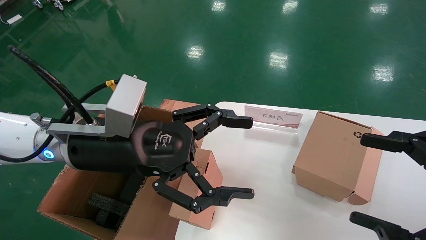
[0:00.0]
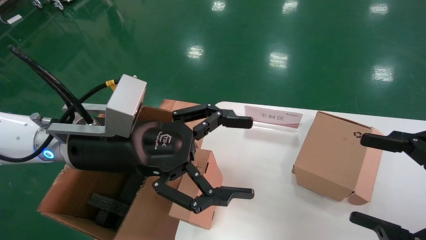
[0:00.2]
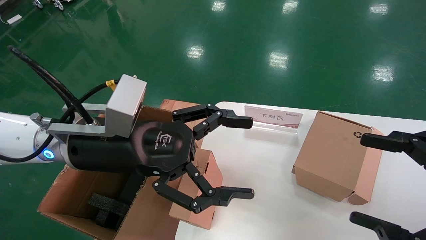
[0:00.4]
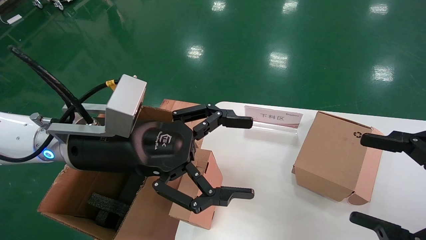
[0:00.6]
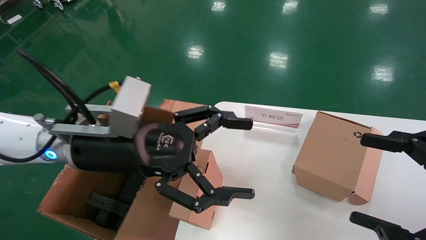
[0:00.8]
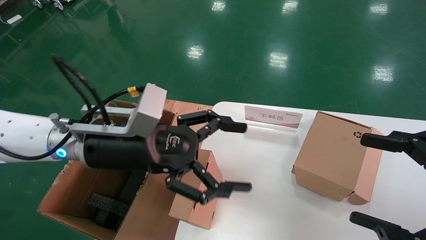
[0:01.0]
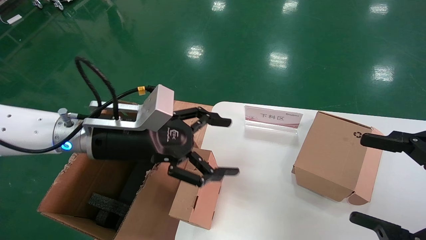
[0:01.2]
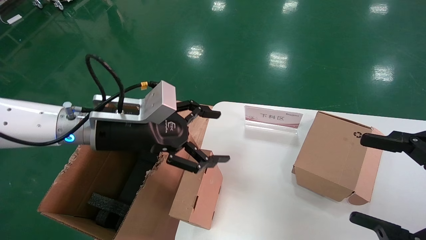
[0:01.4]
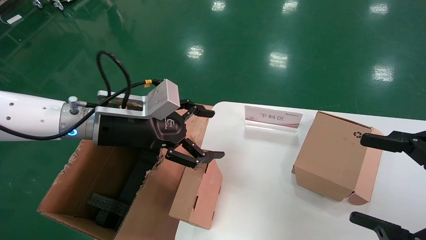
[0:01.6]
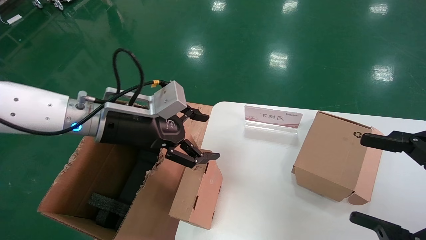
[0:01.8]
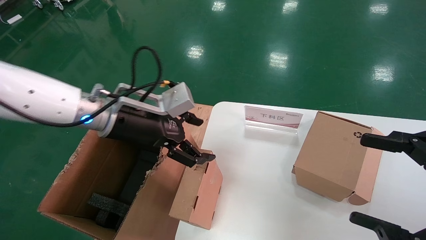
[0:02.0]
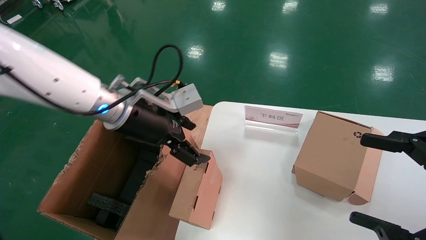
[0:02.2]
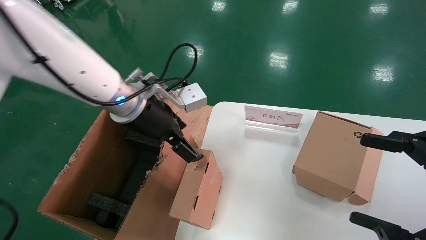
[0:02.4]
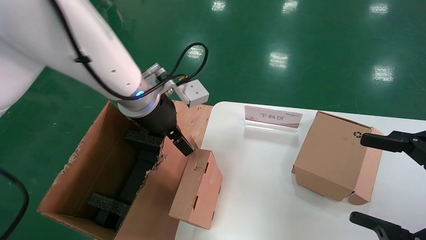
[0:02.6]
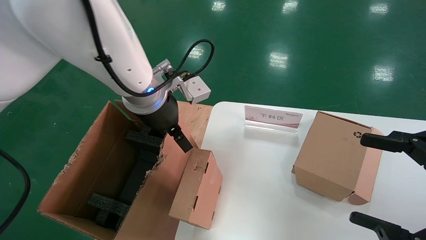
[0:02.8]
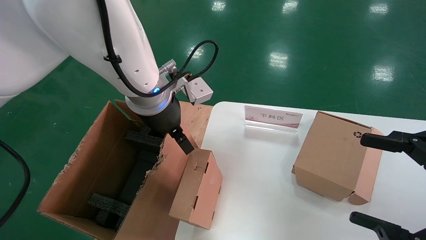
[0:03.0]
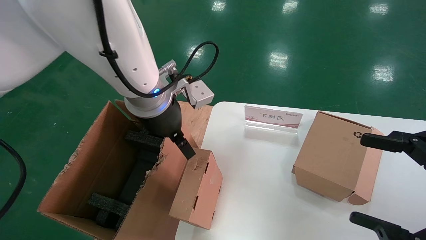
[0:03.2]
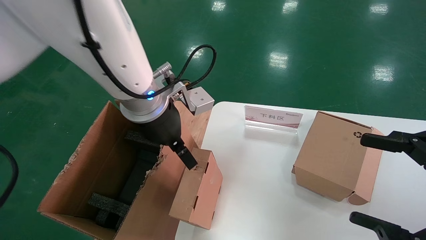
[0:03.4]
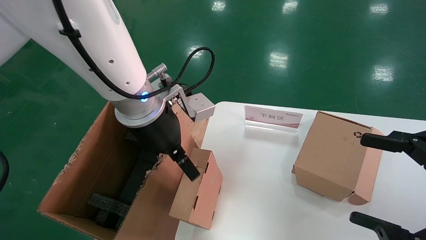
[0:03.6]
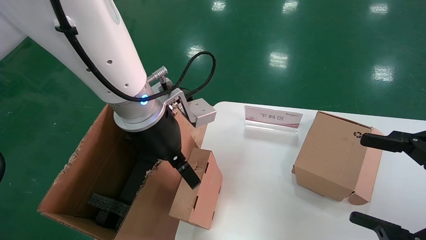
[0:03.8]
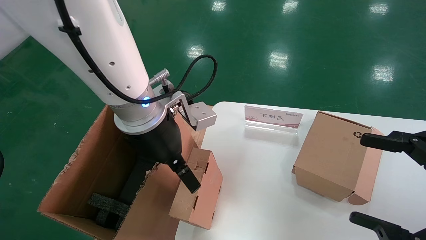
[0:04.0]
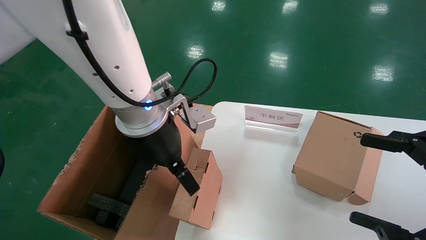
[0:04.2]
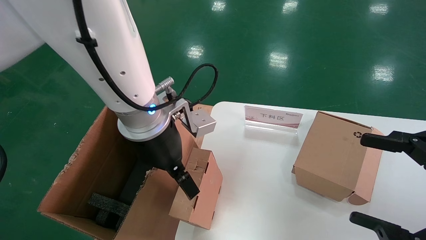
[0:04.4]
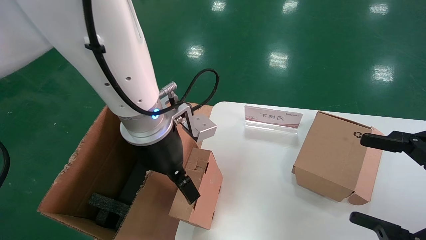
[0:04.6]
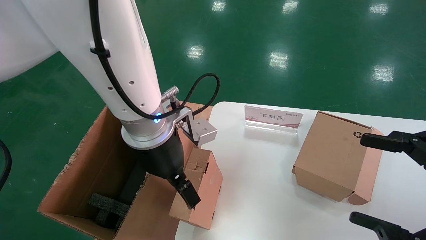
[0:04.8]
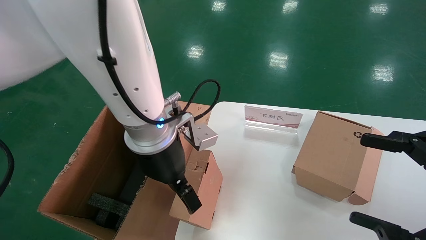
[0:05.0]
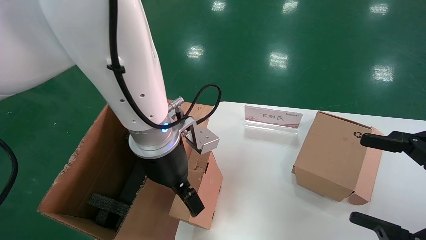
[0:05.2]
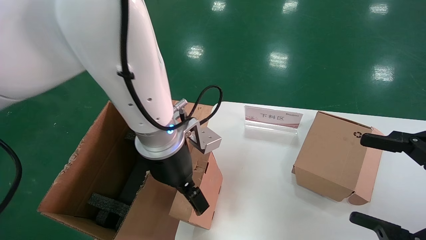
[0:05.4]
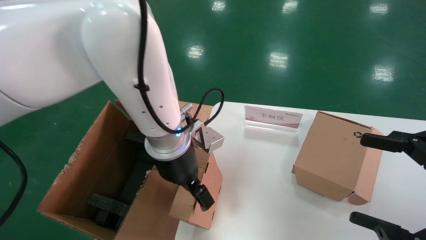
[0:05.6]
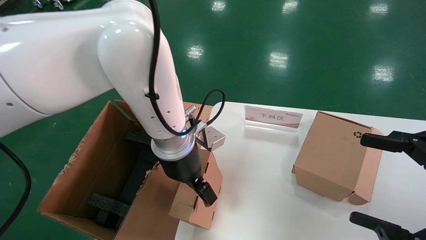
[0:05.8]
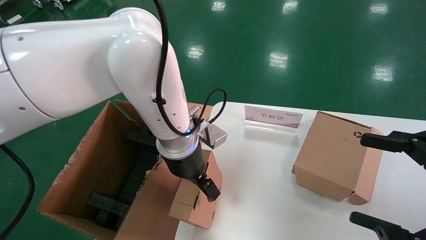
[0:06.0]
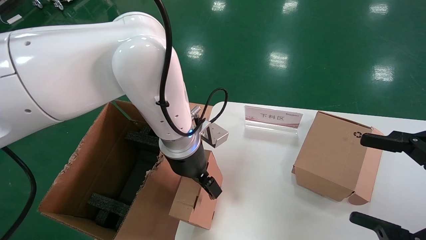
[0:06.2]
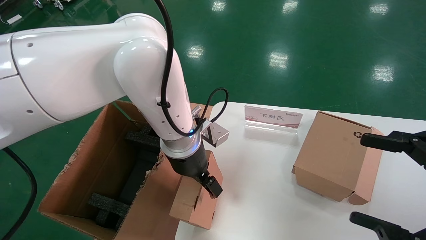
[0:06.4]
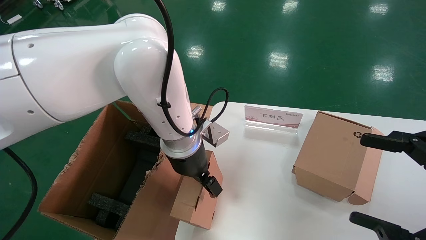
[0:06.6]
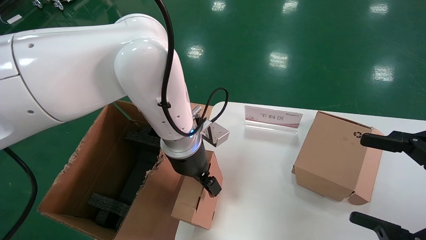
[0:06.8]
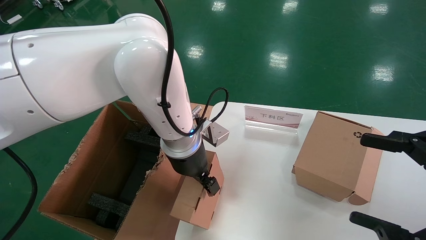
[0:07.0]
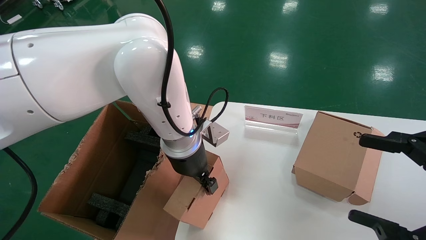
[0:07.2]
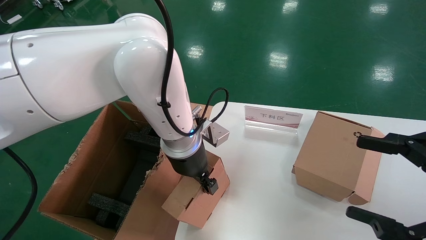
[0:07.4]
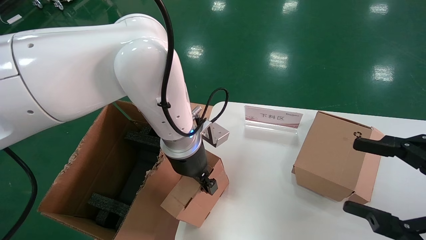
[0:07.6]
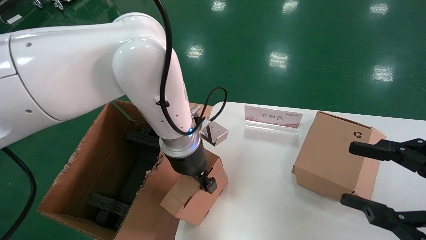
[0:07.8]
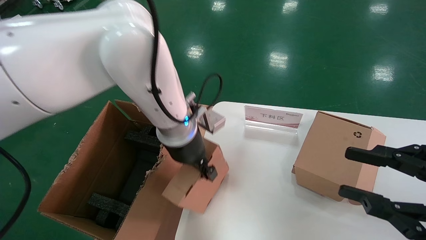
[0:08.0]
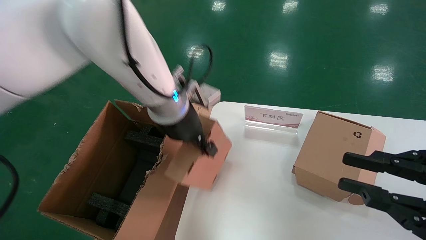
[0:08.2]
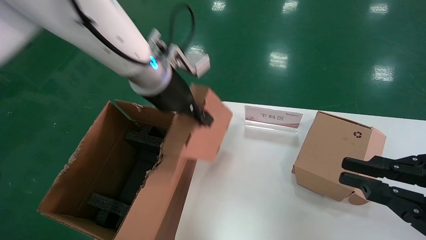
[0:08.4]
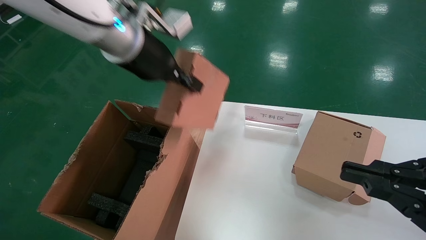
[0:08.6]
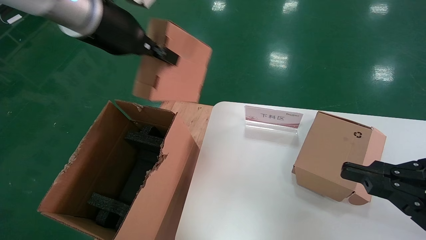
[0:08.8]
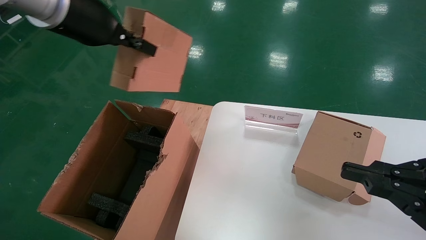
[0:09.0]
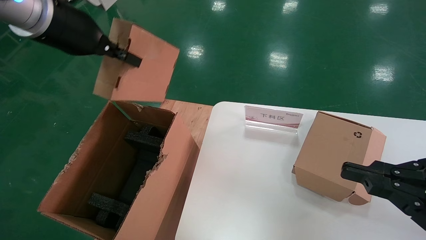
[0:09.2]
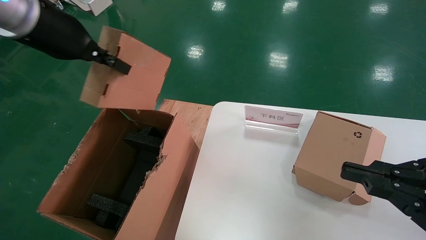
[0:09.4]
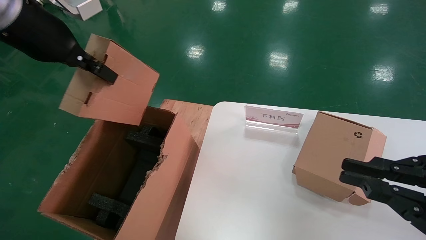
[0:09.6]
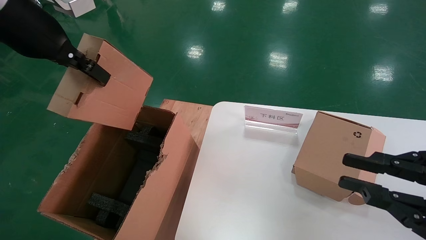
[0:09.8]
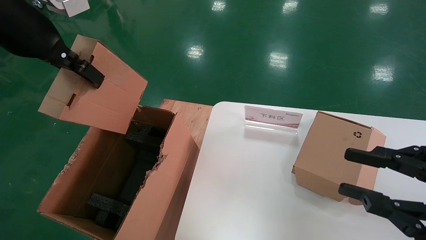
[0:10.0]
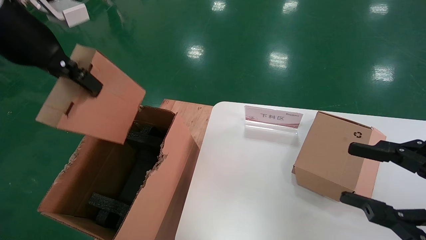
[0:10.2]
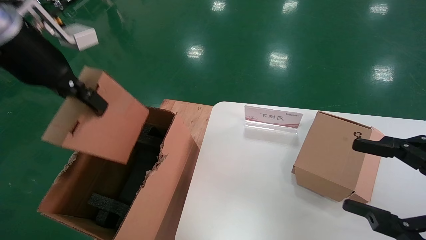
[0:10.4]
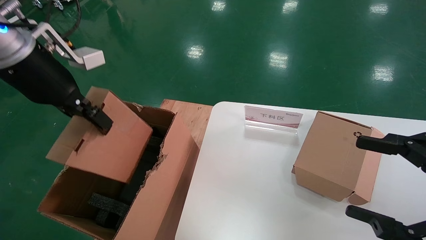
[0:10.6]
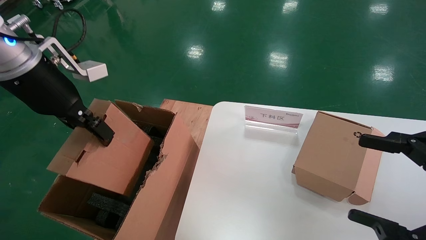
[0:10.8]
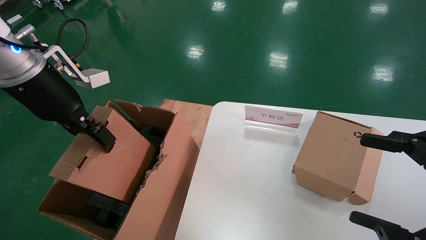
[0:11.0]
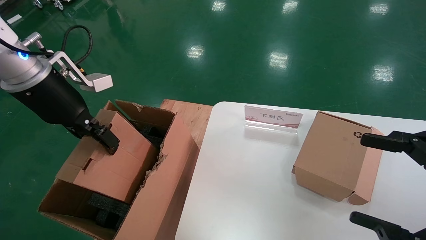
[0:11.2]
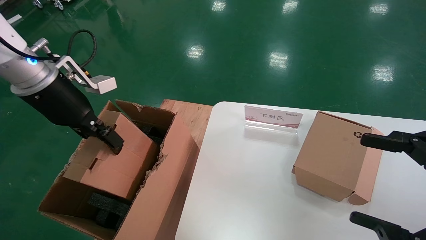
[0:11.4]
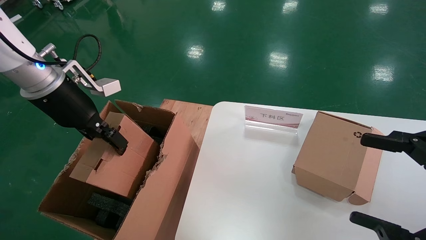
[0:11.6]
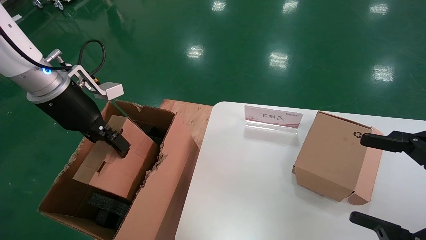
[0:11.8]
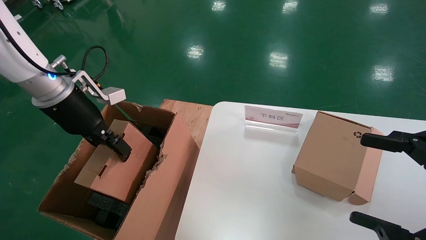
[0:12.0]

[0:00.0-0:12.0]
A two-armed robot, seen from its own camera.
Task of the whole recording: put the box on the table into the big box.
Step, 0:00.0 to 0:07.0: Grasp the paper box.
0:00.0 to 0:01.6: The left gripper shifts about 5 cm forward.
0:01.6 to 0:03.0: The left gripper shifts roughly 10 cm to the right.
0:03.0 to 0:04.4: The left gripper changes place by approximately 5 cm.
0:04.4 to 0:06.0: The left gripper moves downward and forward, some 10 cm.
0:06.0 to 0:07.6: The left gripper closes.
0:07.6 to 0:09.0: The left gripper goes roughly 25 cm upward and to the left; the right gripper closes.
0:09.0 to 0:10.4: The right gripper opens up; the left gripper is displaced to the left by about 5 cm.
0:10.4 to 0:12.0: The right gripper opens up. Meanwhile the left gripper travels downward and forward by about 10 cm.

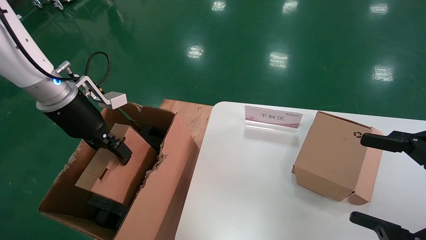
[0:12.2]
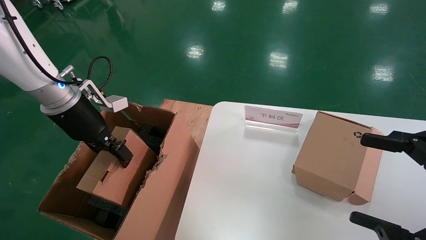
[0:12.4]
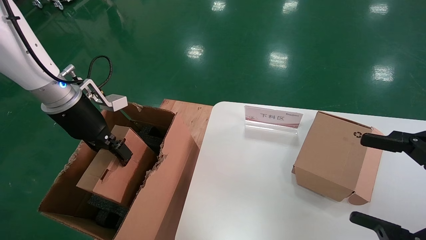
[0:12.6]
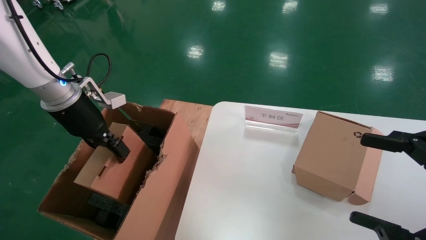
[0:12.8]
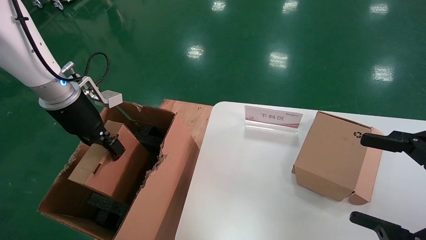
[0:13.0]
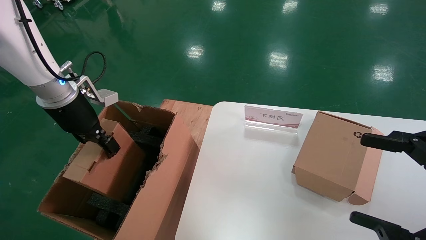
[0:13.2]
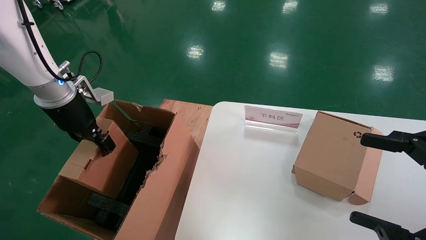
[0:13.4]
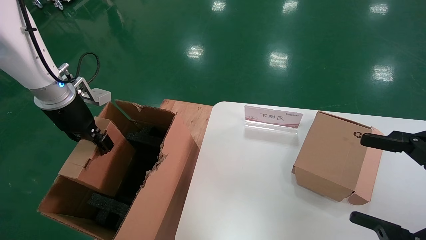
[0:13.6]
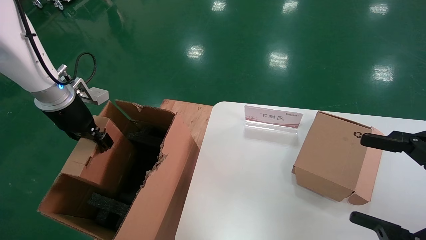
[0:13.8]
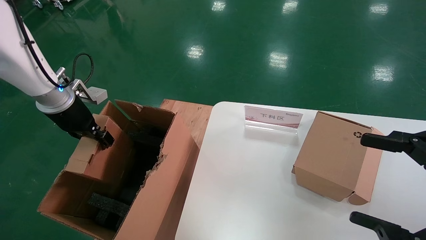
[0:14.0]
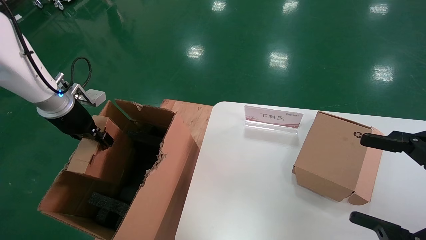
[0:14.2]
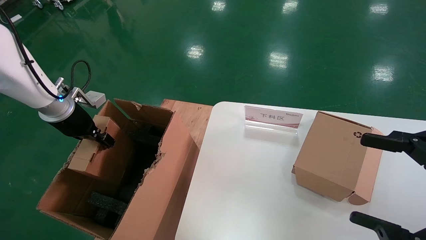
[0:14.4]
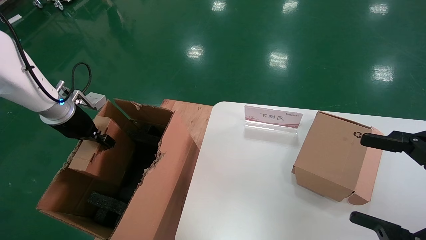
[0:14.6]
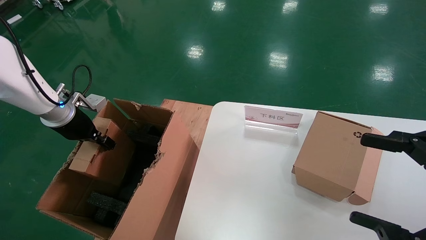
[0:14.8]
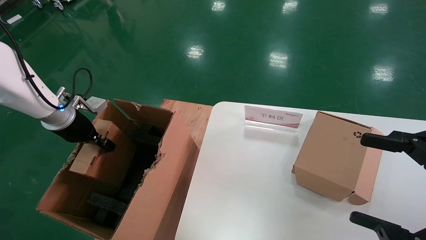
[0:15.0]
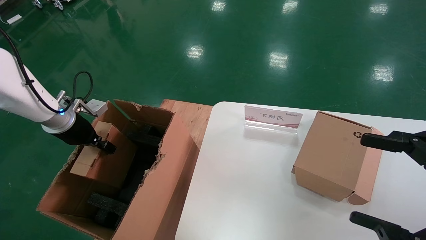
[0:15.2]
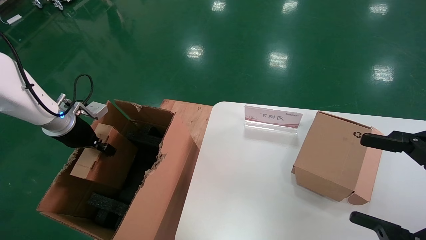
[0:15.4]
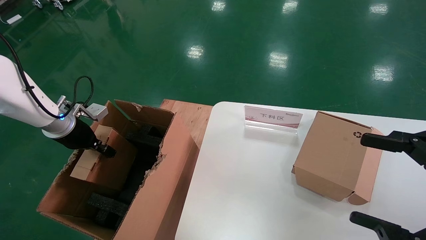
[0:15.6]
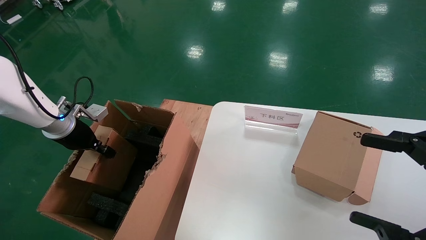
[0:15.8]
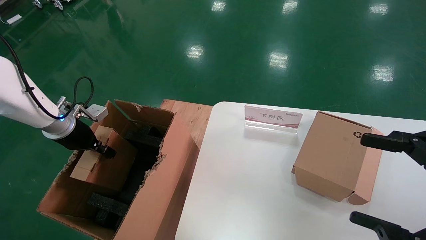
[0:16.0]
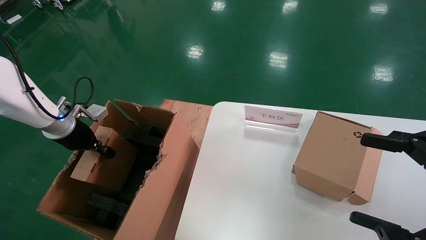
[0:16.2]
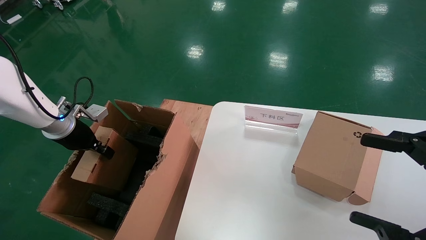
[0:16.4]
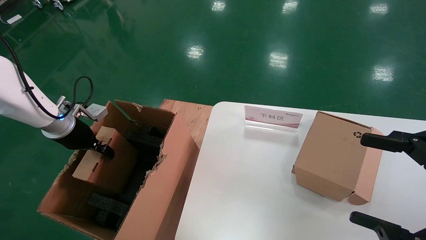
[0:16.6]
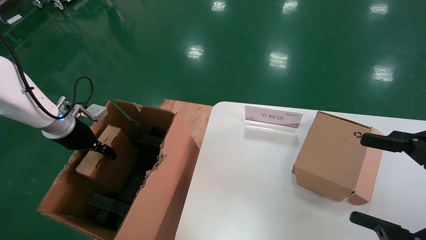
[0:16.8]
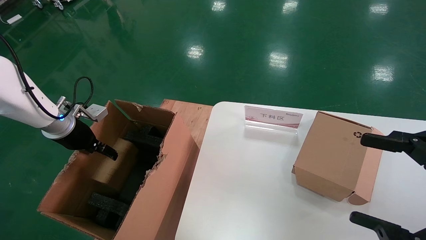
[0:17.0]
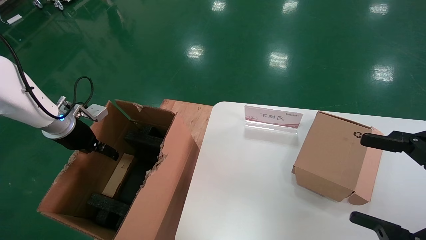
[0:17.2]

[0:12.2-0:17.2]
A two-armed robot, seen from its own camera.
Task of the whole recording: put the box on the table into the big box.
Step, 0:12.2 to 0:16.8: Place the paper box in the another big box.
0:12.2 to 0:13.8: The left gripper shifts approximately 5 cm to the left.
0:13.8 to 0:15.6: The left gripper moves downward, about 5 cm.
0:15.6 to 0:17.2: The left gripper opens its fingers.
